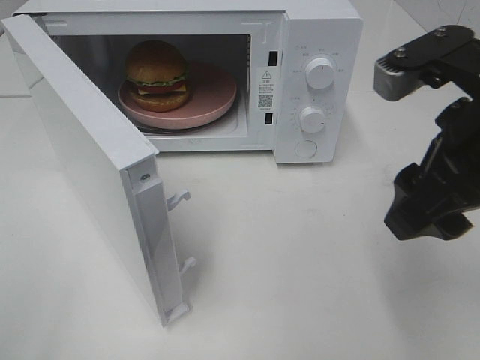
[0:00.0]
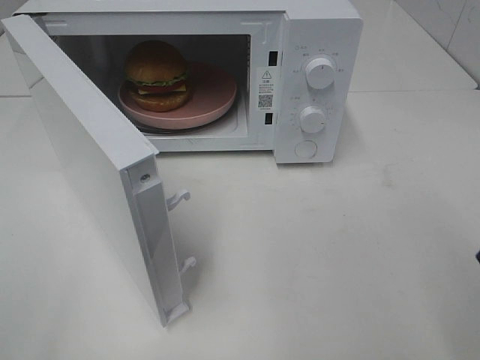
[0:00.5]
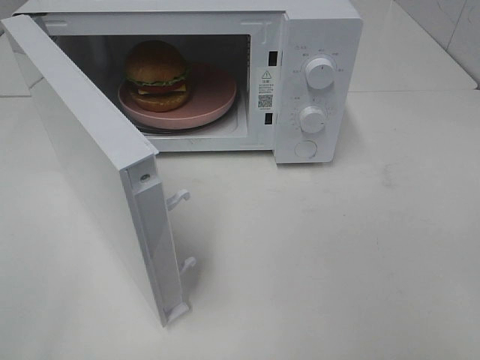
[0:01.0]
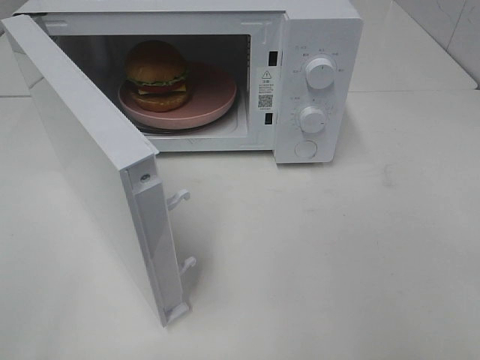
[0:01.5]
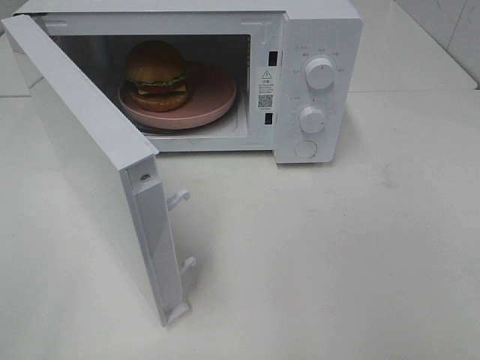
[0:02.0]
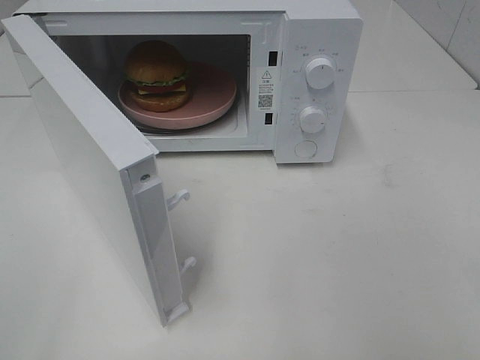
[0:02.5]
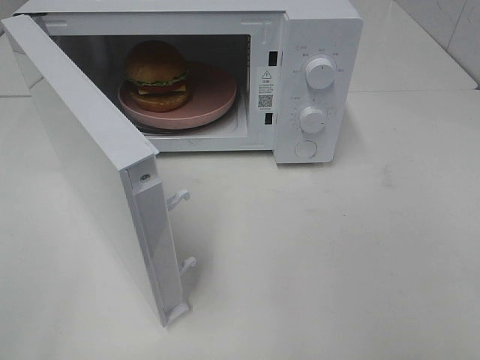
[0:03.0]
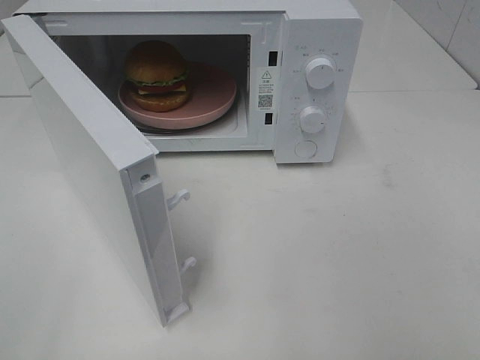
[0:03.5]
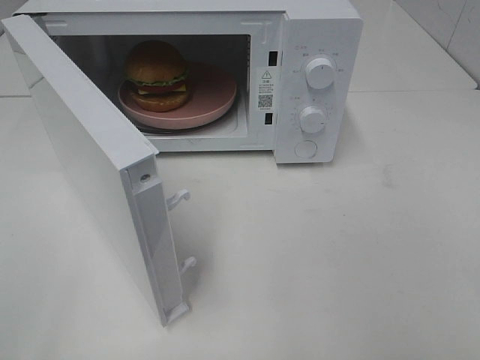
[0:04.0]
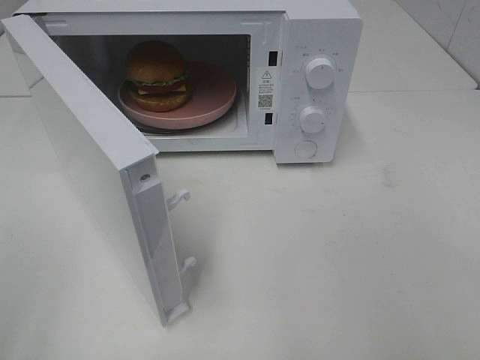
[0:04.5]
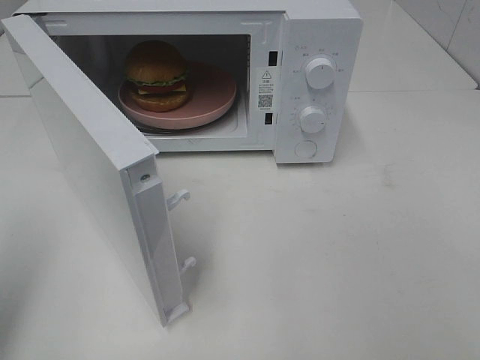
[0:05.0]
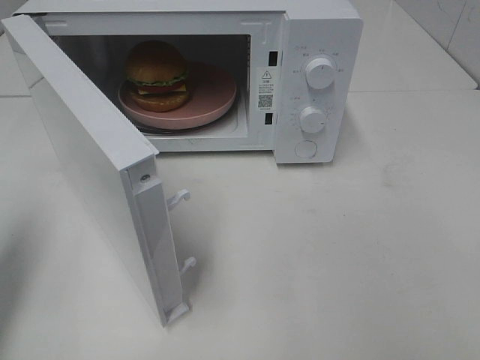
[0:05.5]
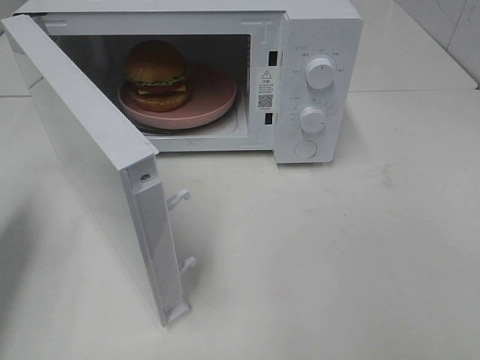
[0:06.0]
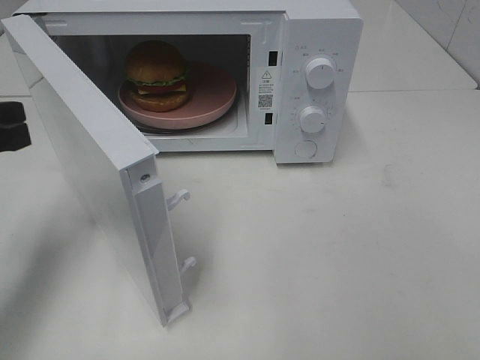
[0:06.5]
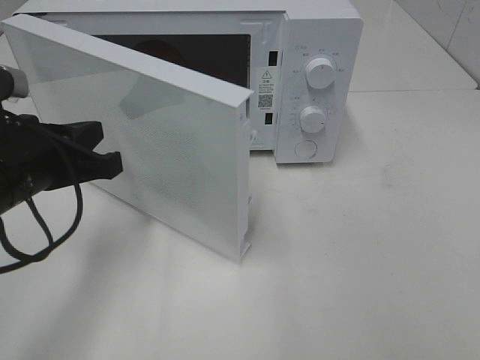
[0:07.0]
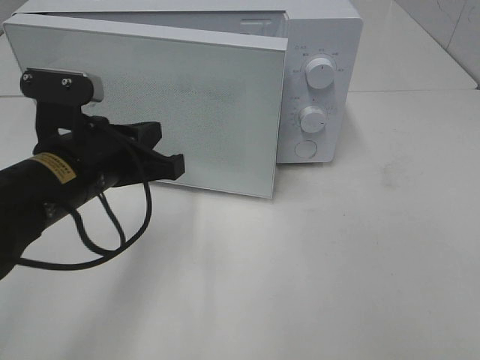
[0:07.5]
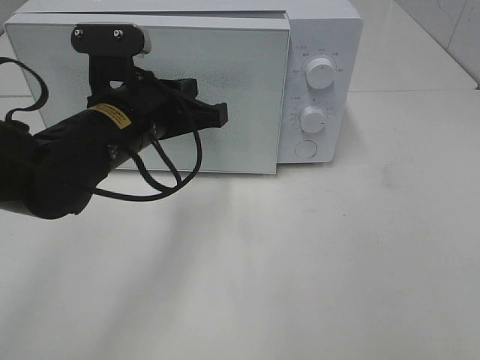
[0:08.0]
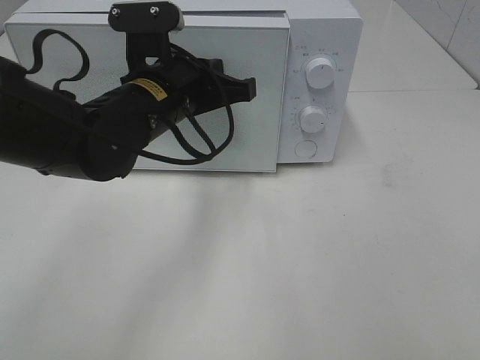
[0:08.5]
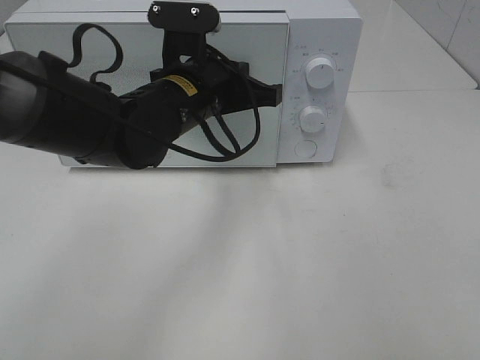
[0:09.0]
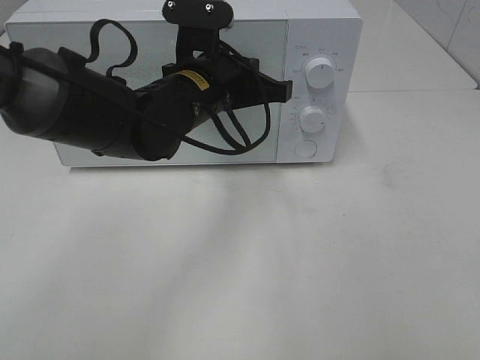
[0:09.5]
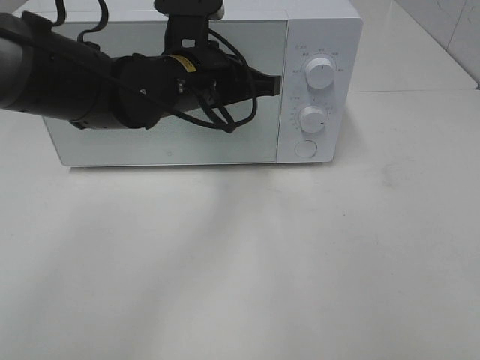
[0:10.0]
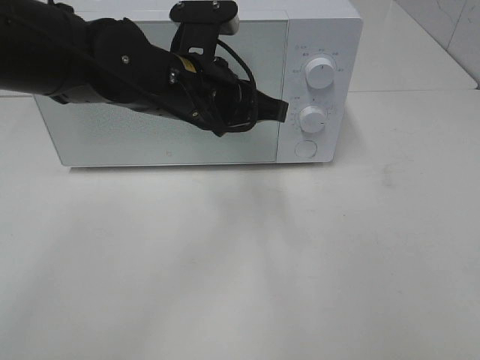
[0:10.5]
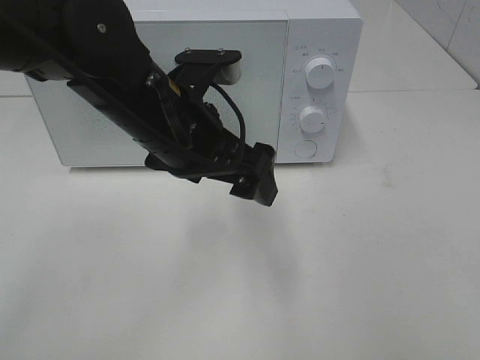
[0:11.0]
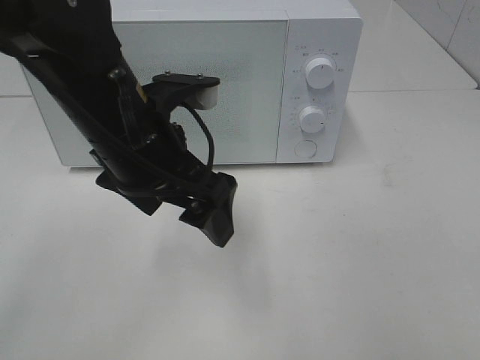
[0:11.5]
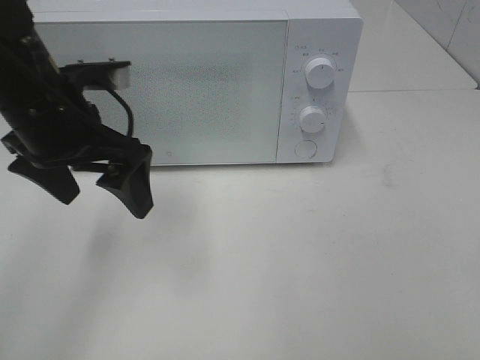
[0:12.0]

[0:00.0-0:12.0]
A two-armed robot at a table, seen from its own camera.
Task of the whole recording: Heat the burger.
Step, 0:00.0 to 0:10.0: Left hand: close the microwave door.
0:00.0 to 0:02.0: The right gripper goes about 20 cm backward and to the right.
0:02.0 to 0:04.0: Neither gripper changes place.
0:04.0 to 0:06.0: The left gripper moves forward, about 25 cm, and closes up.
0:06.0 to 0:08.0: The left gripper goes approximately 25 cm to the right.
0:08.0 to 0:10.0: The left gripper heads to the right and forward, covering some 5 cm.
0:10.0 to 0:12.0: The left gripper goes about 15 cm to the left and backward, and opens up.

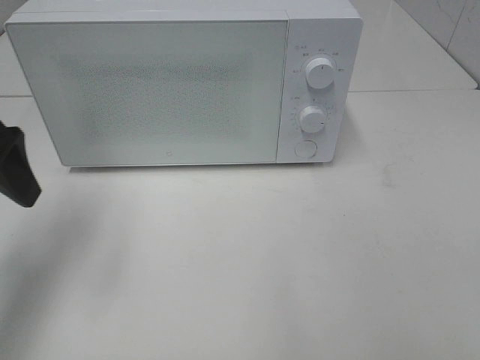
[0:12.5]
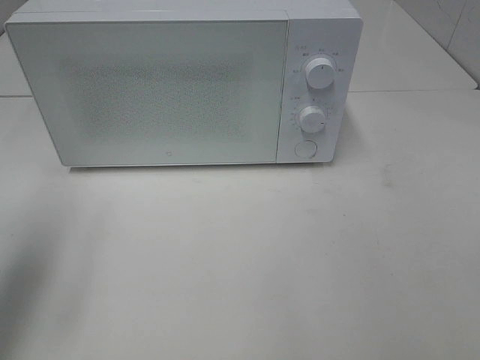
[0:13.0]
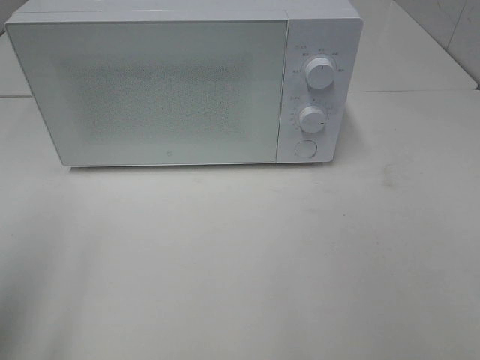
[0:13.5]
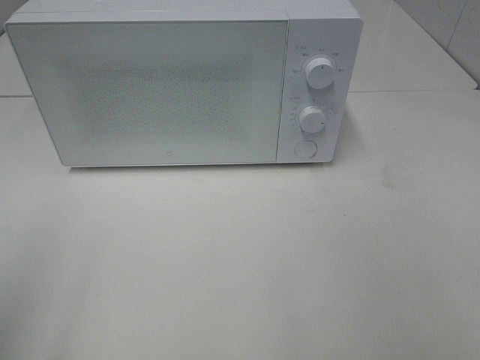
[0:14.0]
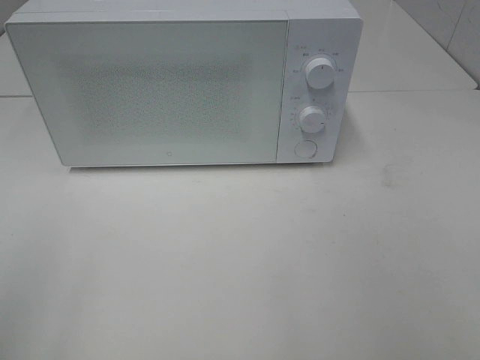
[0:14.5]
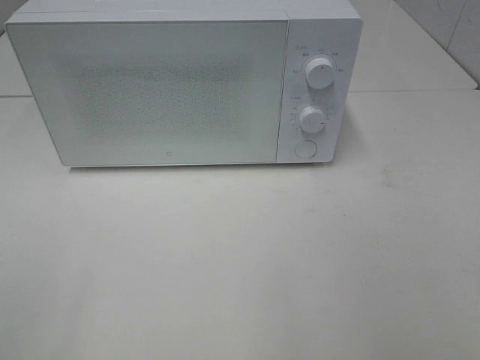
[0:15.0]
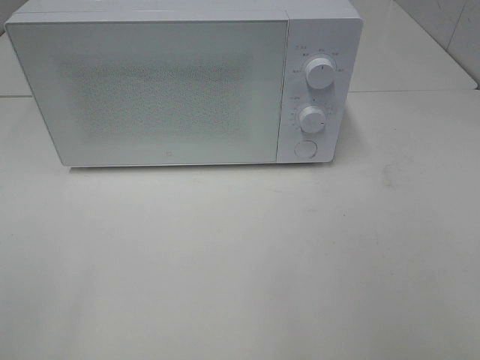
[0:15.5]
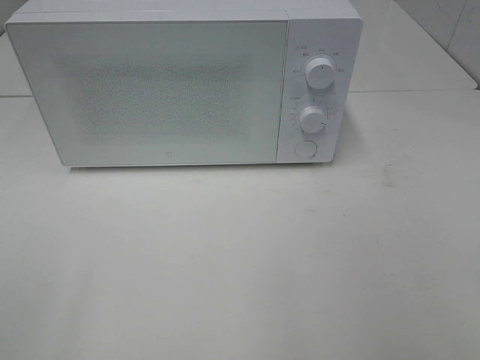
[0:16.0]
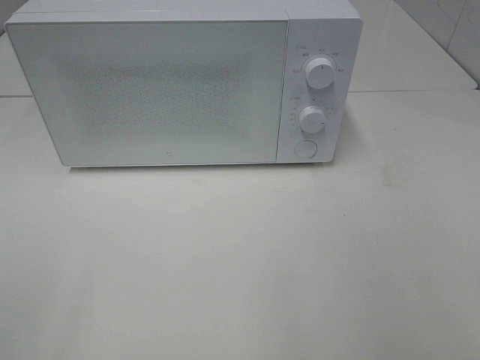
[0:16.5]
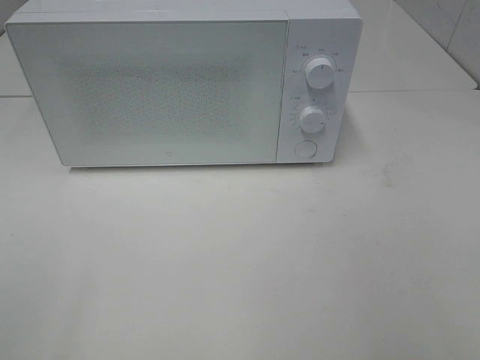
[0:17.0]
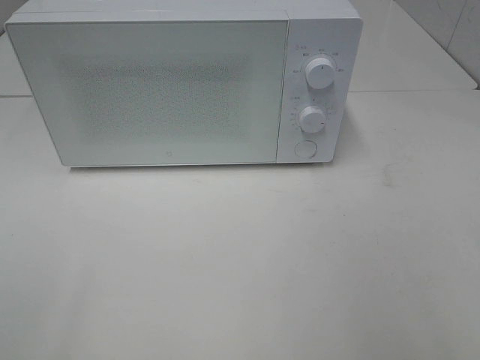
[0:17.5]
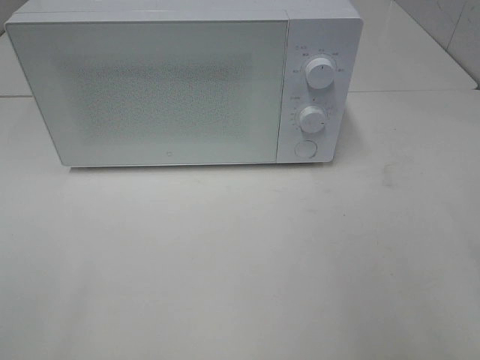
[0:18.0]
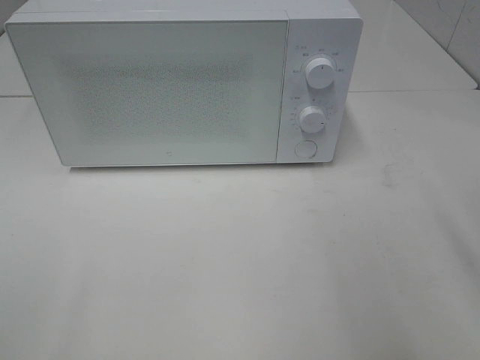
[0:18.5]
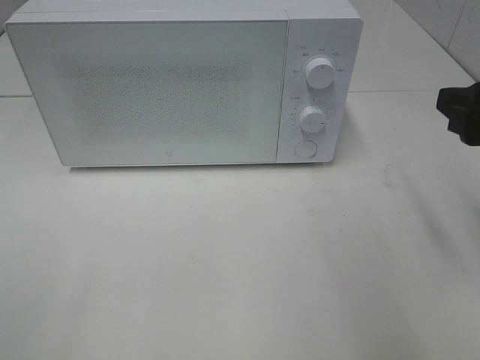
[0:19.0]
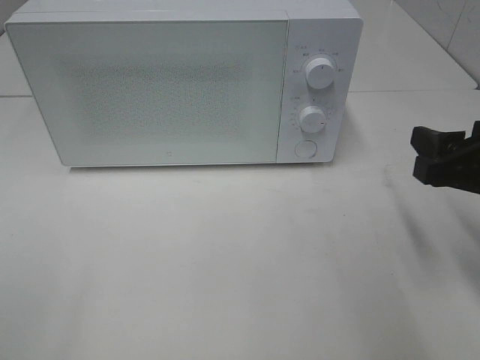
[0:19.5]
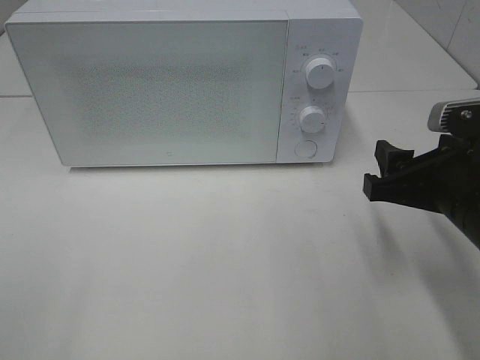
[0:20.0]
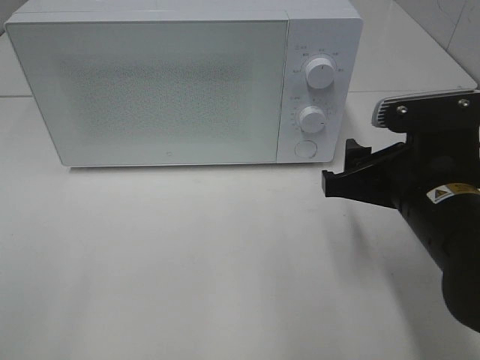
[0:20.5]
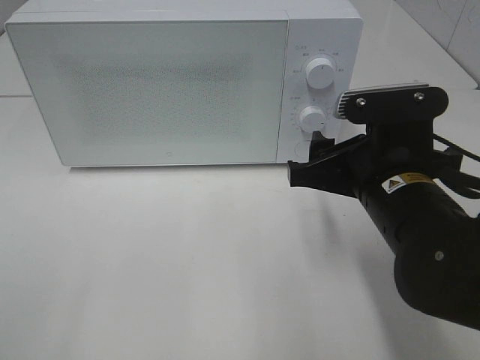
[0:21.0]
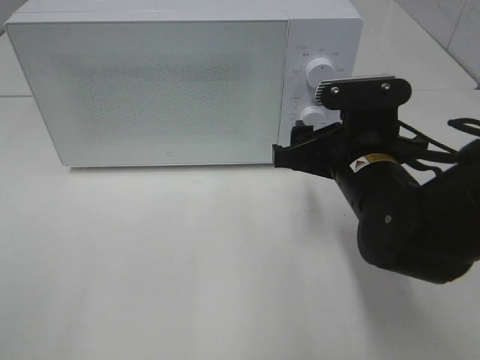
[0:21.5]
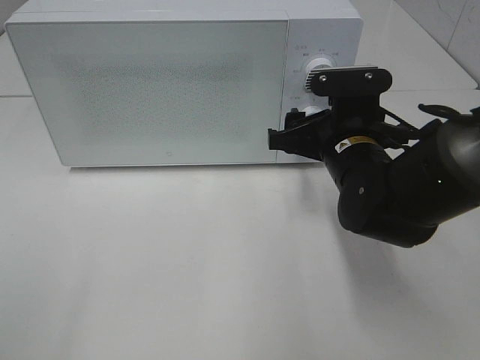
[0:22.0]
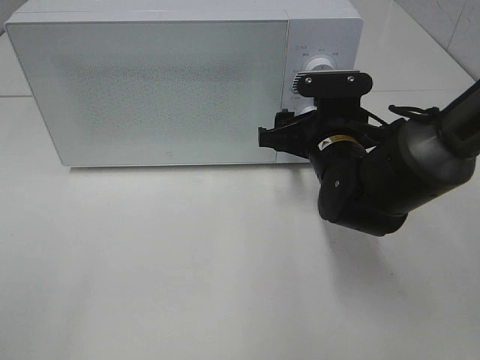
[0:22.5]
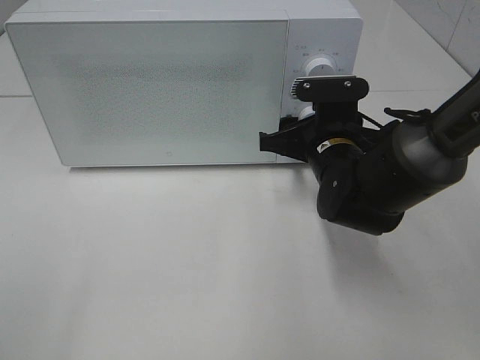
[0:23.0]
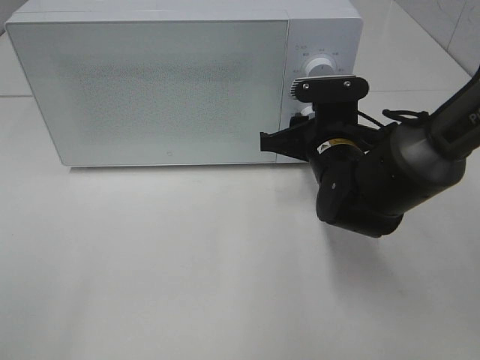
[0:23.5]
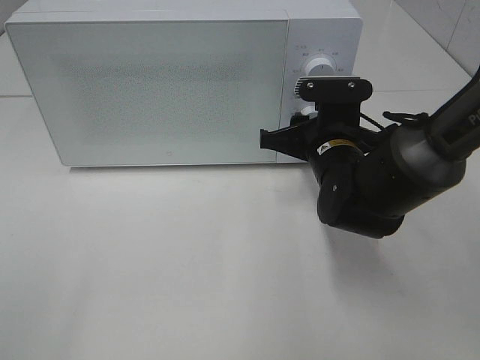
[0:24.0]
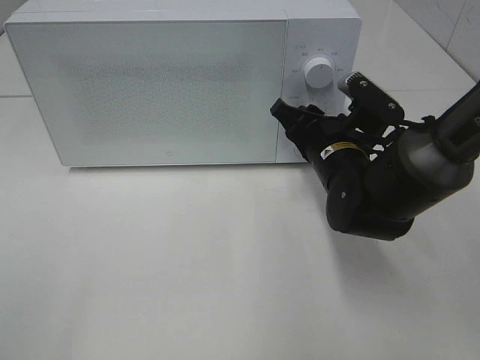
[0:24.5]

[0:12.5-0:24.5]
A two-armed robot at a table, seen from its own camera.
Task of the whole recording: Heat the burger.
0:12.5 to 0:14.5: The left gripper moves backward, some 20 cm.
0:18.5 to 0:20.5: The right gripper moves downward and to the left, some 15 cm.
0:20.5 to 0:22.5: The right gripper goes about 10 cm forward.
0:22.5 to 0:24.5: The right gripper closes its fingers.

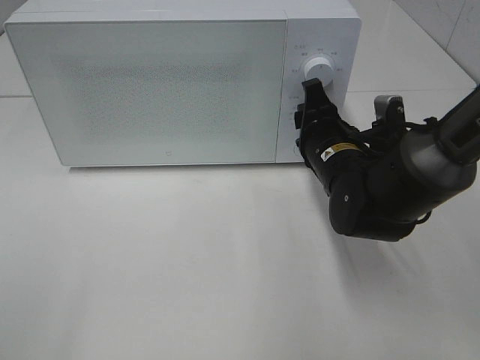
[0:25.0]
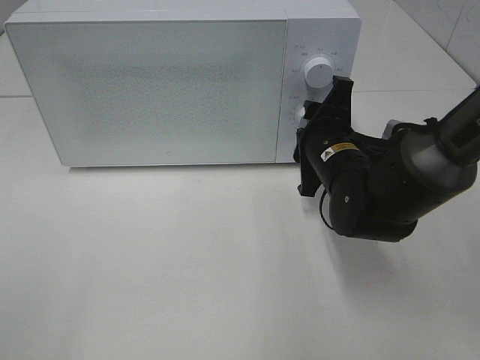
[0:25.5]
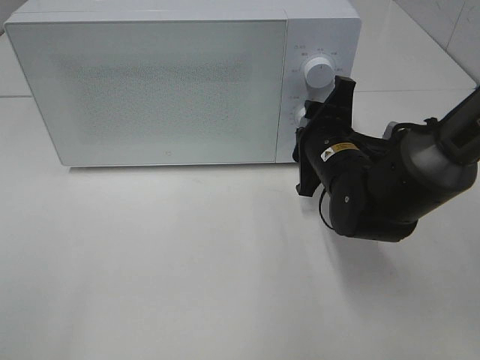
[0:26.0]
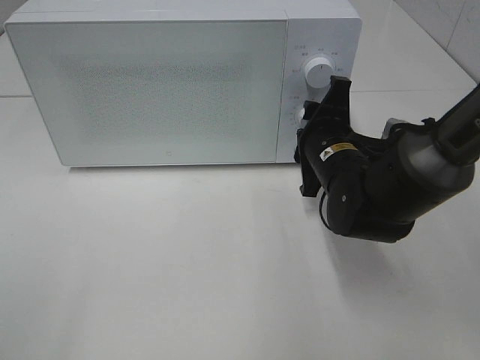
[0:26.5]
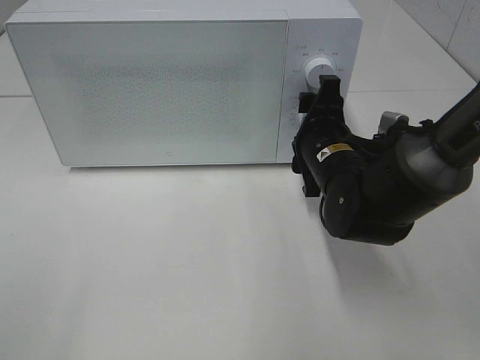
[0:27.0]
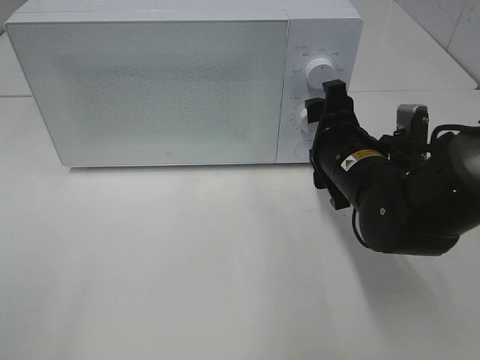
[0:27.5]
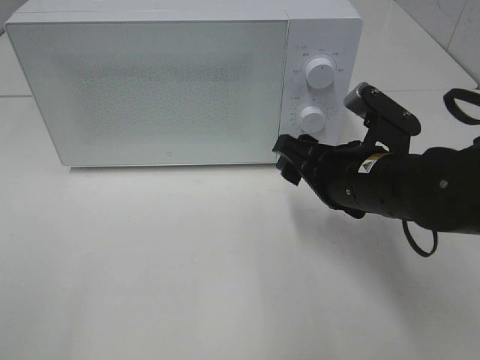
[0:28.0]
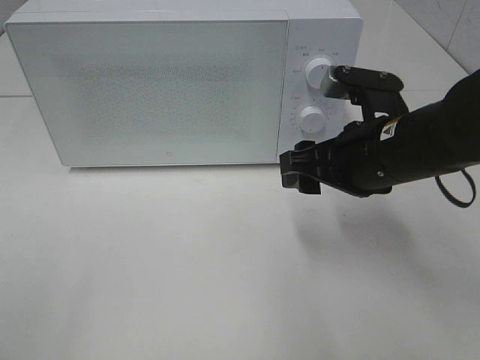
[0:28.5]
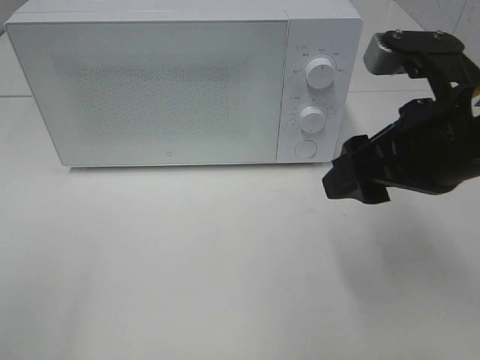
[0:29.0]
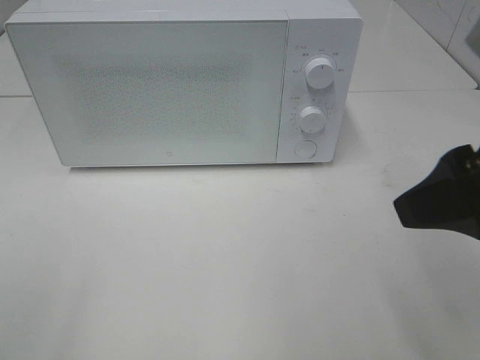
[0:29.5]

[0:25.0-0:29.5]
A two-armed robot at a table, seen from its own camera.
Task of the whole recording: Heat the burger.
0:27.0 to 0:29.5: The right gripper moves backward, upward and to the right, about 25 cm.
